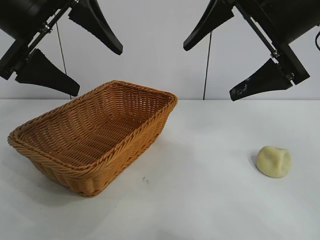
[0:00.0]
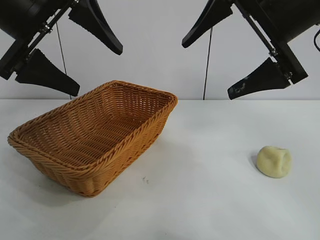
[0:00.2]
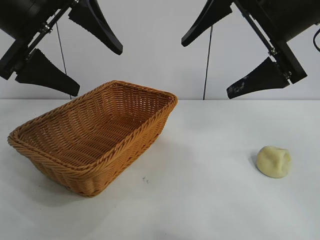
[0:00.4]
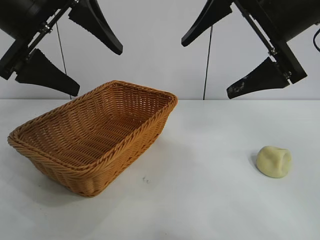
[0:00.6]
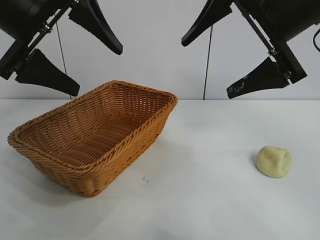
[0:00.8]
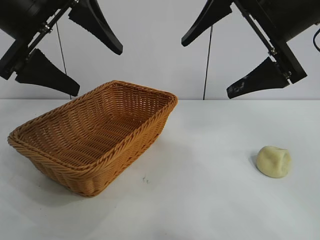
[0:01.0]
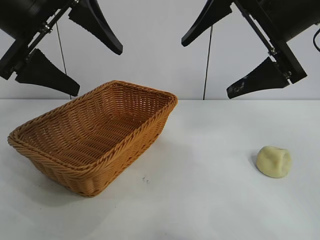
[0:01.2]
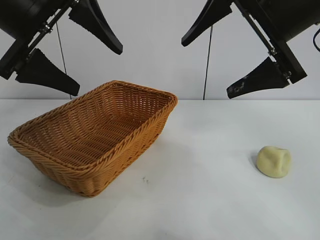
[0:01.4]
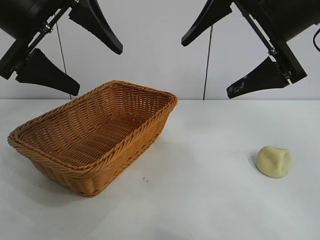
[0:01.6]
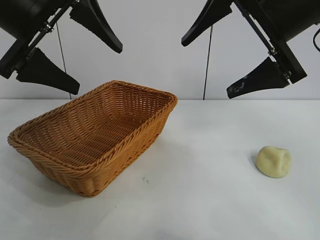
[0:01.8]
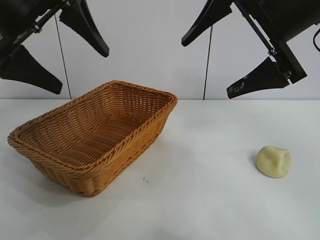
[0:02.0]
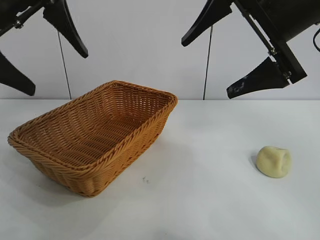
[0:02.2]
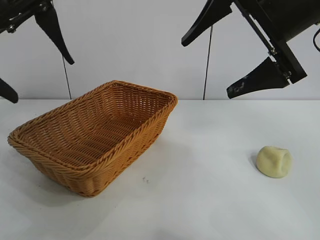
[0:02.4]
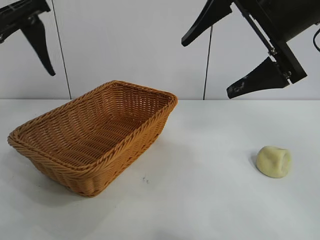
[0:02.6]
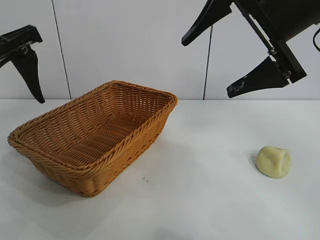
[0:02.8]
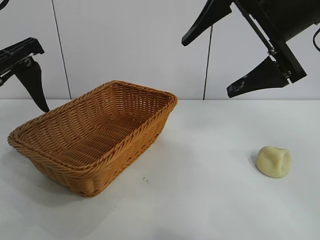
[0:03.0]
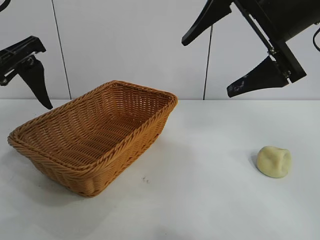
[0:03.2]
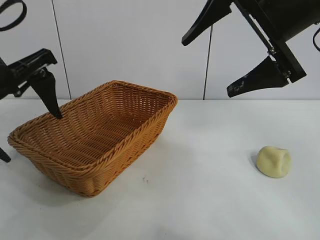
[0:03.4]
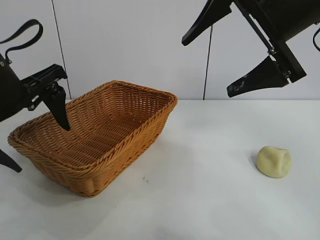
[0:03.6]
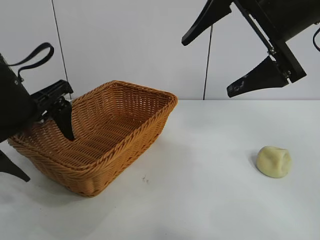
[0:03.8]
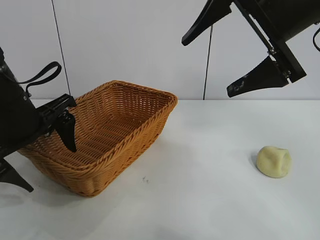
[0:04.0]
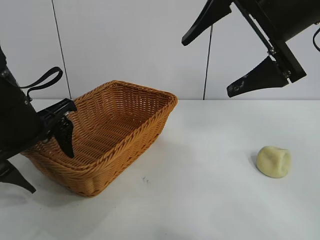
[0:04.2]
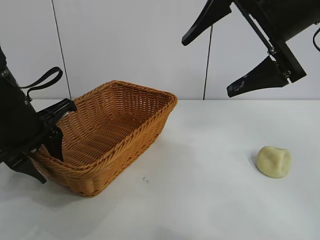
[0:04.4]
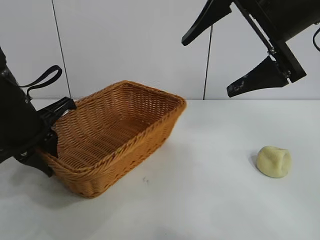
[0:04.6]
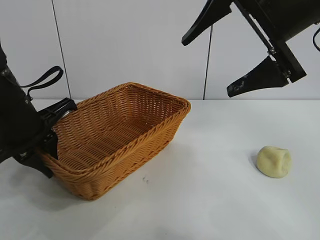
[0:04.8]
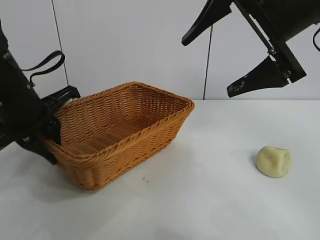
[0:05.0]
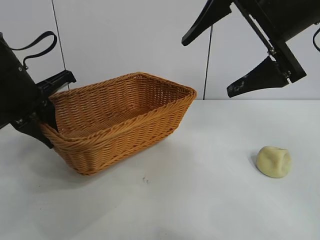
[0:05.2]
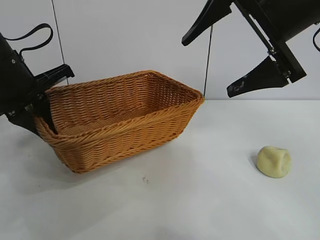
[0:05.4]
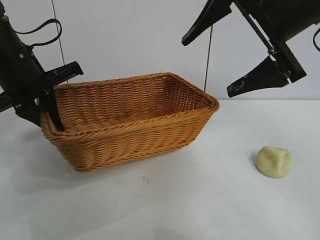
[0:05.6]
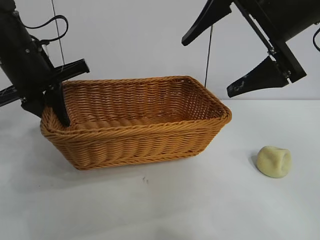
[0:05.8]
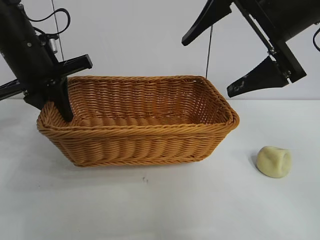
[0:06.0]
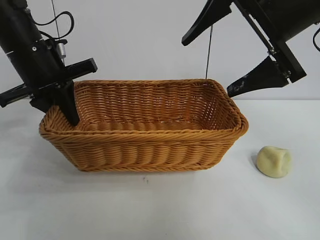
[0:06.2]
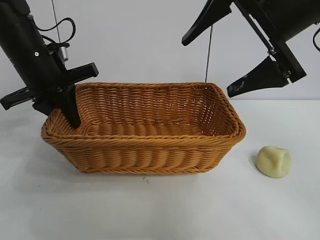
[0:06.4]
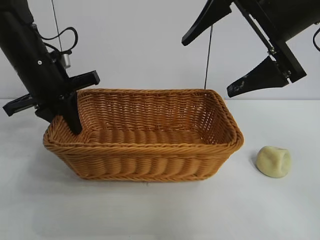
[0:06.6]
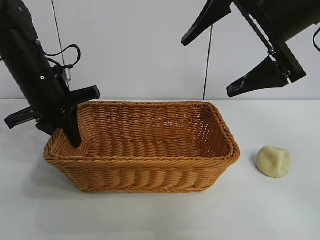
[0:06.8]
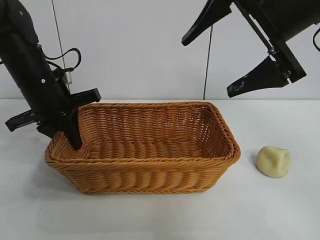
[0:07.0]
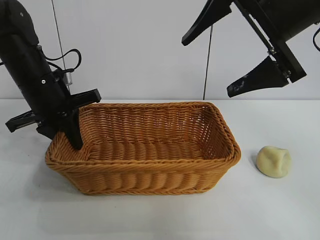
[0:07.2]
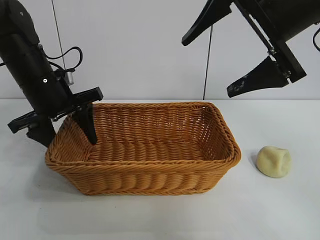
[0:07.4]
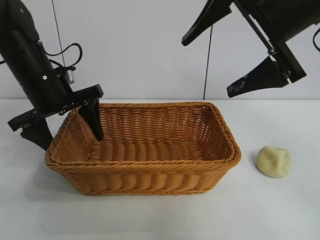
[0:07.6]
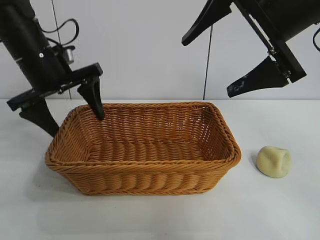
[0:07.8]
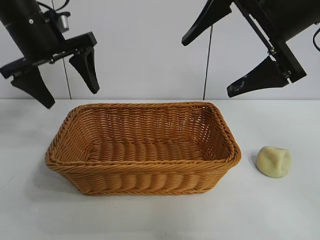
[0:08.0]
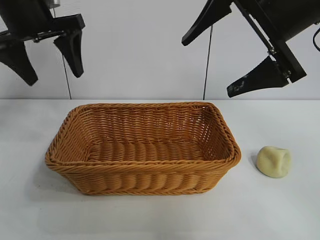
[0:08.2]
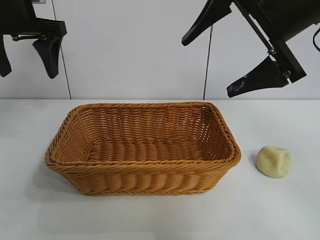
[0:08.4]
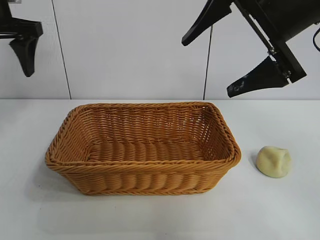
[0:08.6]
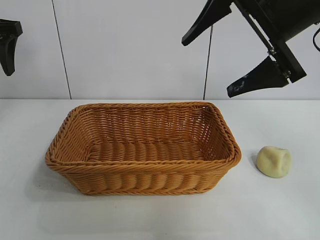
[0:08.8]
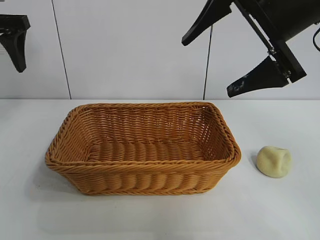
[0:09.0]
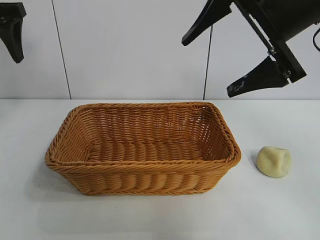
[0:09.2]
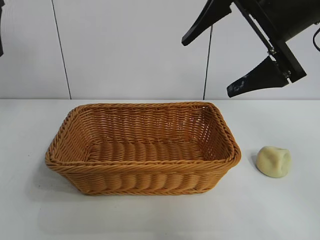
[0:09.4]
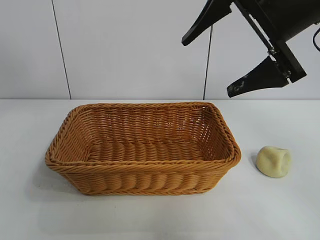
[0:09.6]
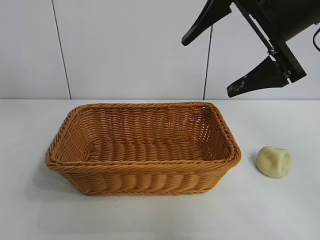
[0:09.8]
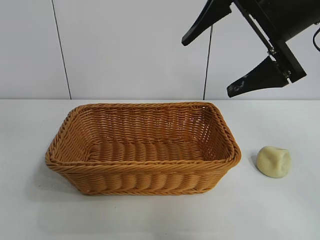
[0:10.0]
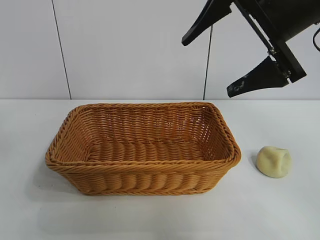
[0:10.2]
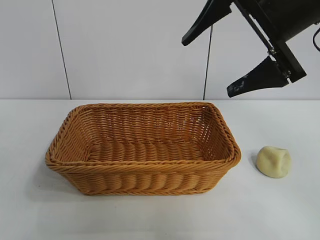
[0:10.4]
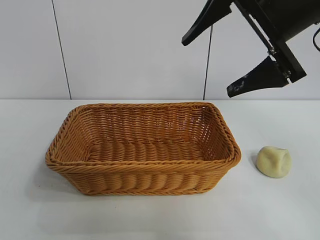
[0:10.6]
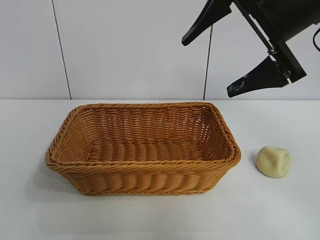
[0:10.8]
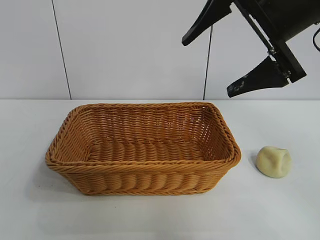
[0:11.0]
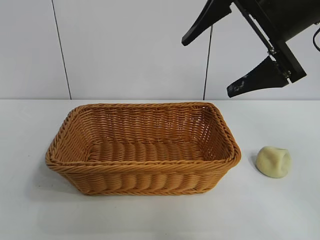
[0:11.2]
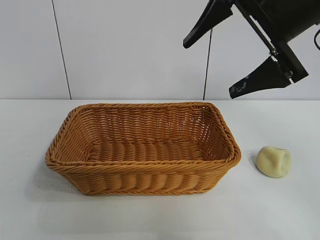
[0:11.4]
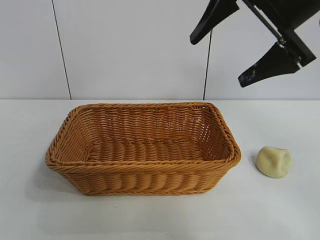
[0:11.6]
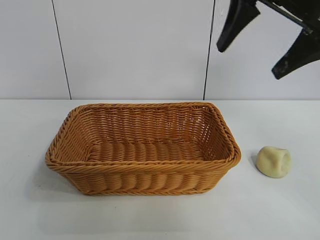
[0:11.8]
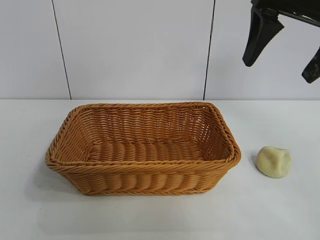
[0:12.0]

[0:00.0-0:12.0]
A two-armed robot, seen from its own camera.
Task of the whole recording: pick up the egg yolk pastry and put it into the basket.
Step, 0:01.6 to 0:04.6: Grasp the basket with left gripper.
Step, 0:04.8 to 0:07.4: Place the basket in the center of view with left gripper.

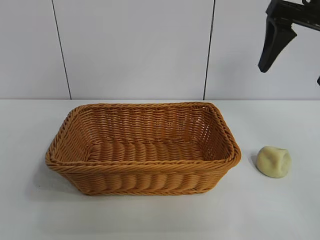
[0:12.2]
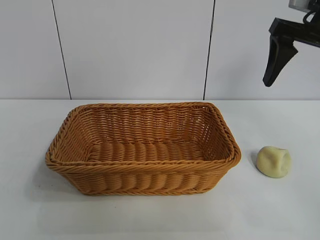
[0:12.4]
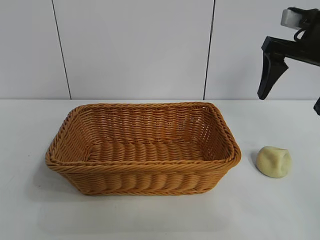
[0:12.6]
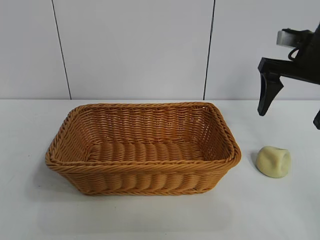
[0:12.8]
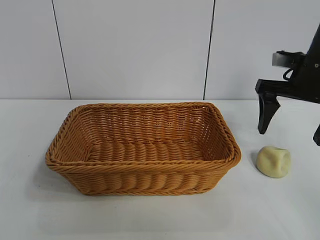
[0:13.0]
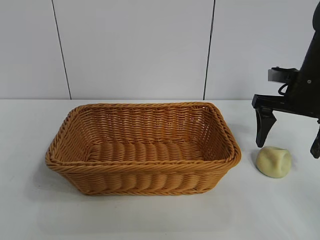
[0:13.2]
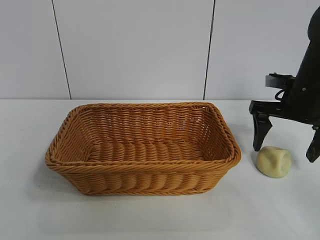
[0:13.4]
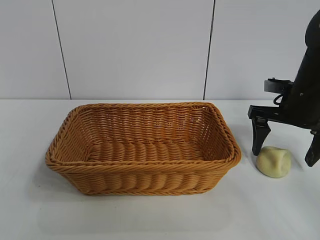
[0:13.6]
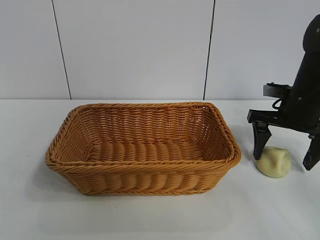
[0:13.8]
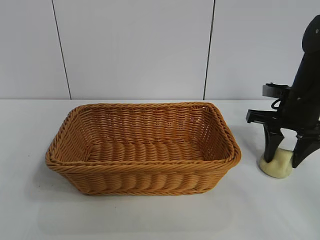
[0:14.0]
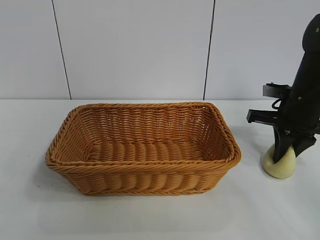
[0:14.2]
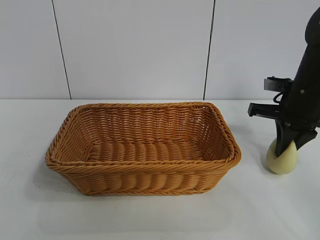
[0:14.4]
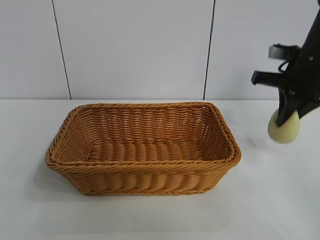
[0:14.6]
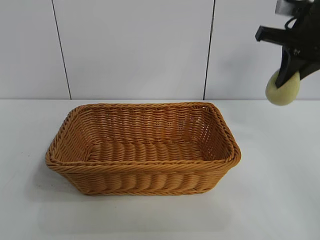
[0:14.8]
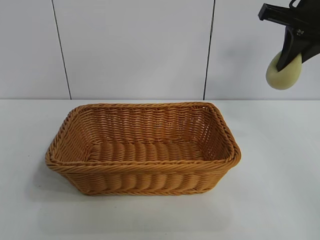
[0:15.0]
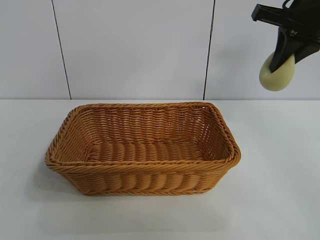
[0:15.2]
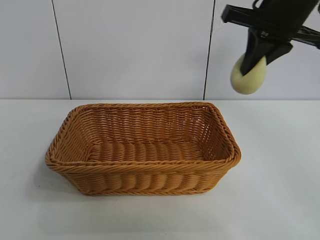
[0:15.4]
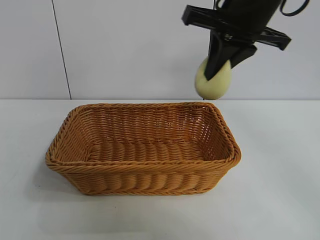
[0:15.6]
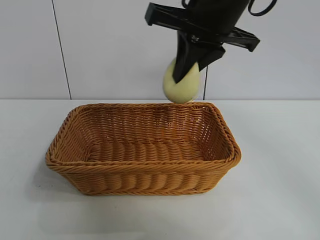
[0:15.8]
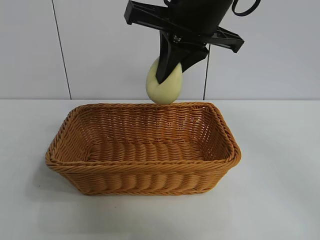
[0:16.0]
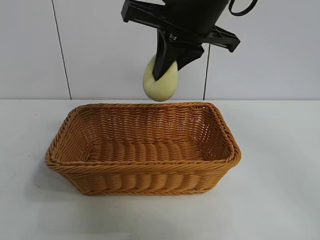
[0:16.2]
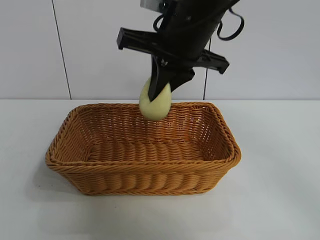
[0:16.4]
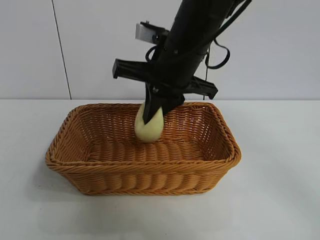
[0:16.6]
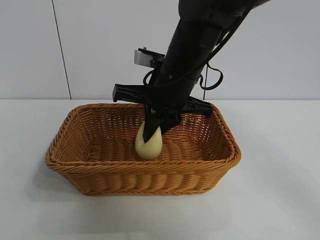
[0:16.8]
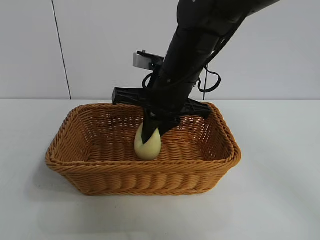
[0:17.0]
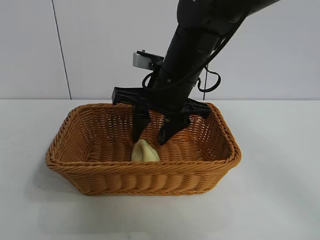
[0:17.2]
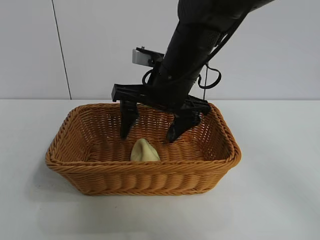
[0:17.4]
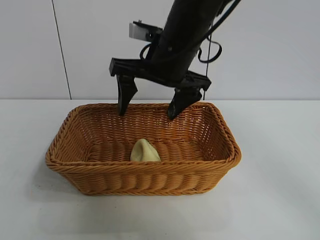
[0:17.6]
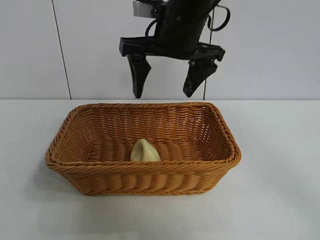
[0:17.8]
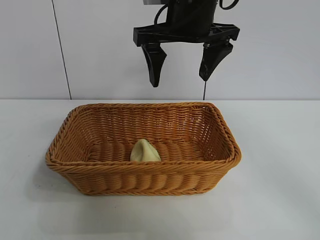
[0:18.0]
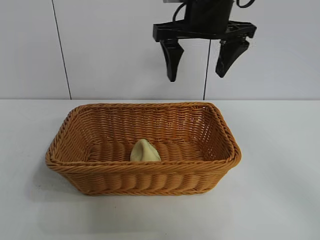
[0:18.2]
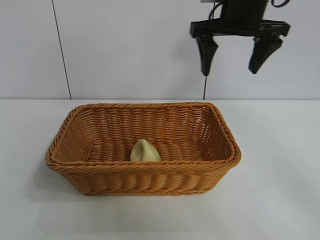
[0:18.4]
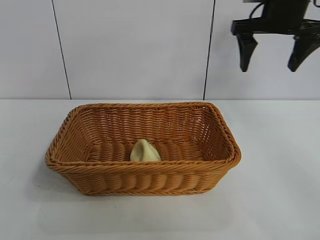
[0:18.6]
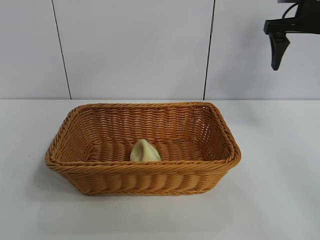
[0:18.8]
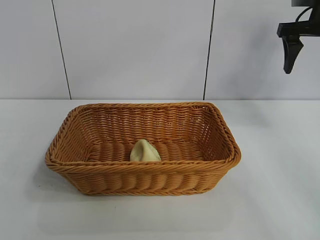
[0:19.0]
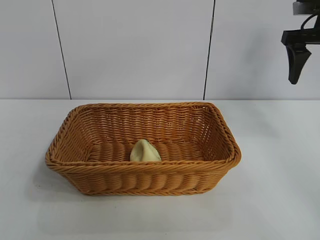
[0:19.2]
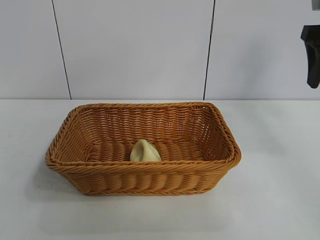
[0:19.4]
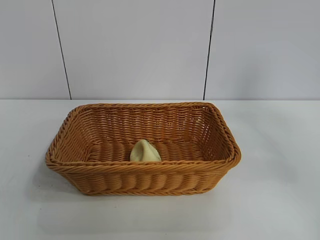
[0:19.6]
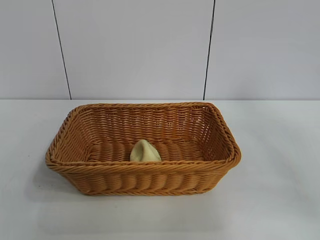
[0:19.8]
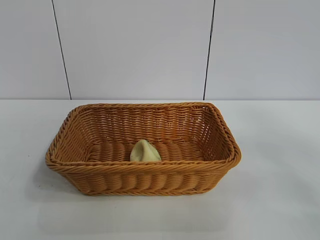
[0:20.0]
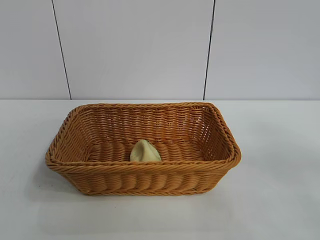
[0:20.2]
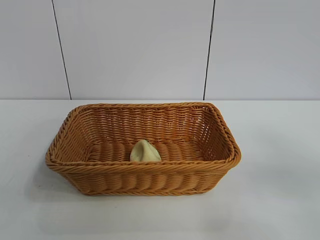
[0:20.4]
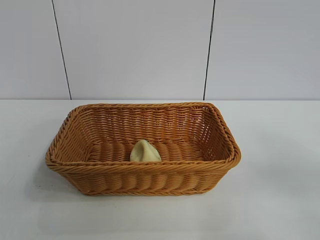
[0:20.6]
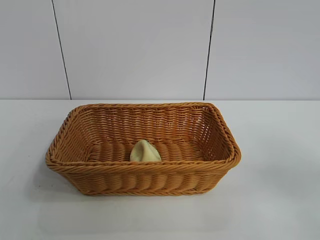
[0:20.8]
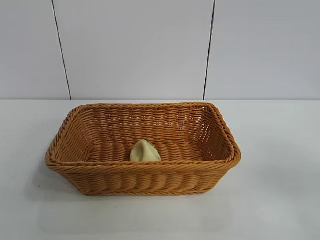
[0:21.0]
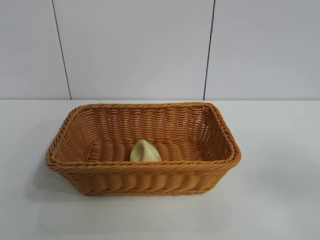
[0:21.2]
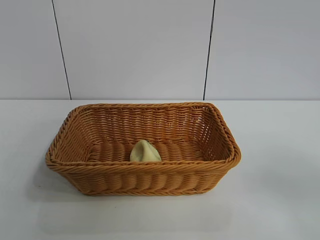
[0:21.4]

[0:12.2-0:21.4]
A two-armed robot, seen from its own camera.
Task of the whole recording: pick up the egg yolk pastry and put it into the basket.
Step, 0:12.2 to 0:14.2: Grasp egg yolk pastry with right gripper.
Step, 0:14.4 to 0:17.2: Place the egg yolk pastry in the basket with right gripper.

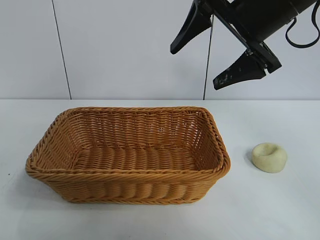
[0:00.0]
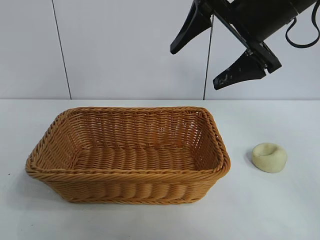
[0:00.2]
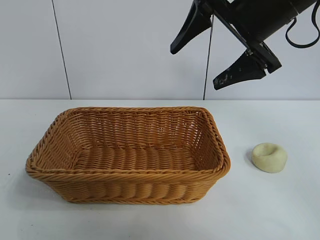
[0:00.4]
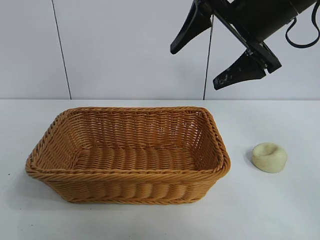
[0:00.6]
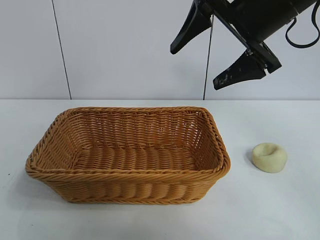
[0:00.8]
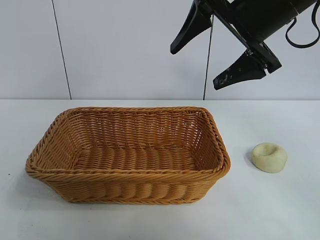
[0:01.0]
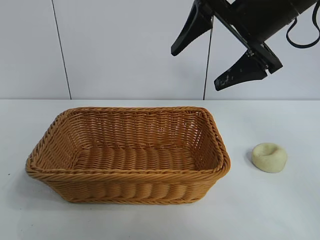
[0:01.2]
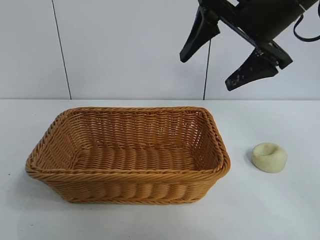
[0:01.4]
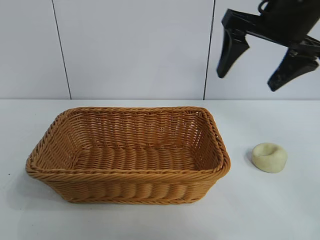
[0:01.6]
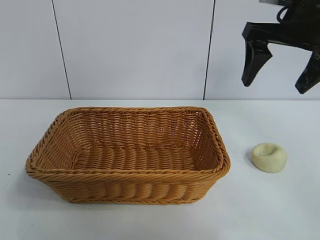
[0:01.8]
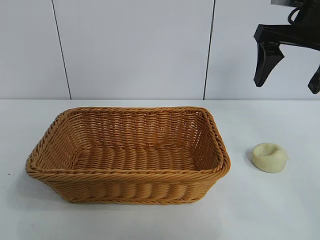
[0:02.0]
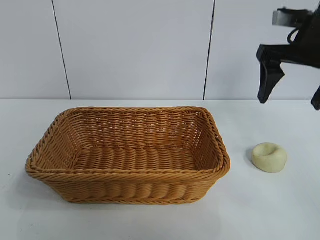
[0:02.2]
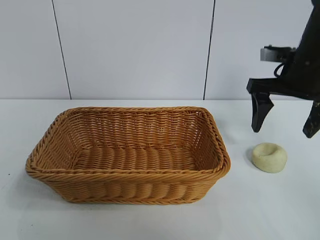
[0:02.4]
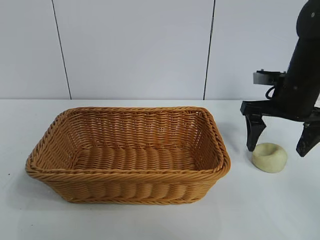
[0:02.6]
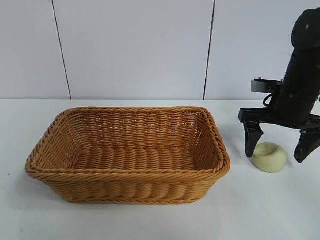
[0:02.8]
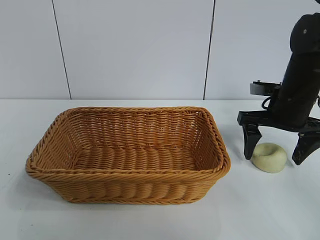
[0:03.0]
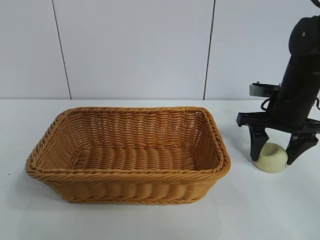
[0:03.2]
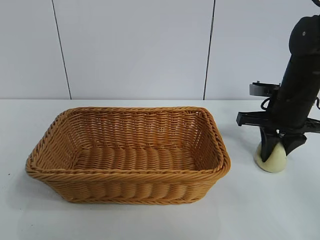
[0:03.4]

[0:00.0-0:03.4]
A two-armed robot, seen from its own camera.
Task of the whole recording: pick up the egg yolk pastry and put it into the basket.
Step, 0:00.0 to 0:03.4: Grasp egg yolk pastry with right gripper.
